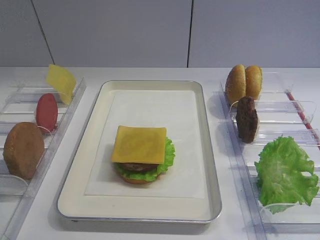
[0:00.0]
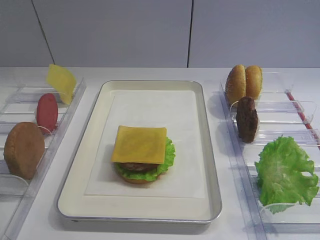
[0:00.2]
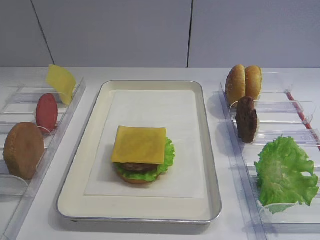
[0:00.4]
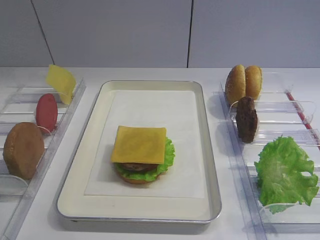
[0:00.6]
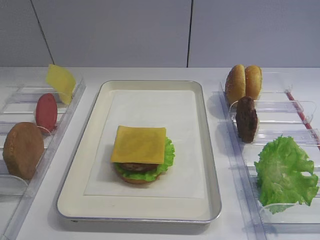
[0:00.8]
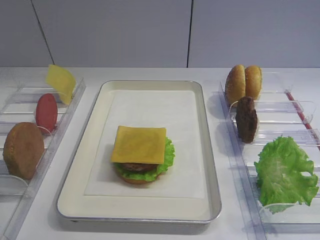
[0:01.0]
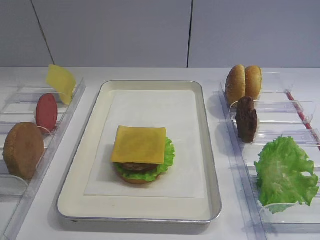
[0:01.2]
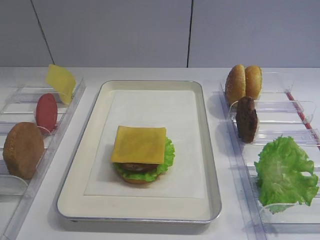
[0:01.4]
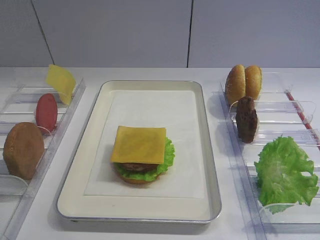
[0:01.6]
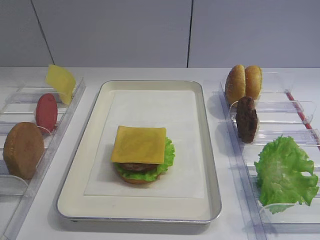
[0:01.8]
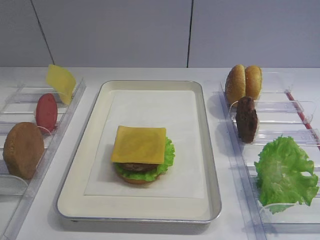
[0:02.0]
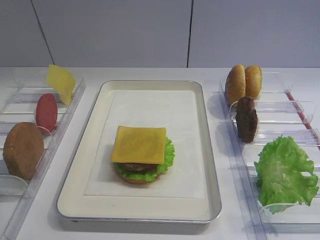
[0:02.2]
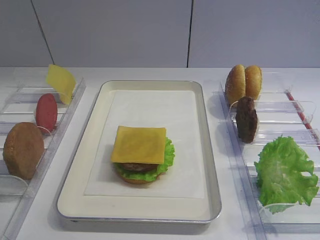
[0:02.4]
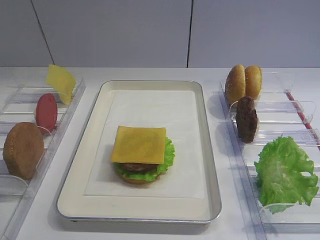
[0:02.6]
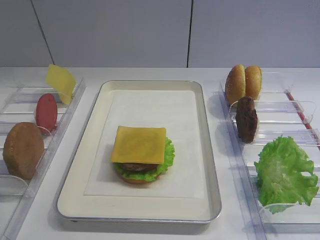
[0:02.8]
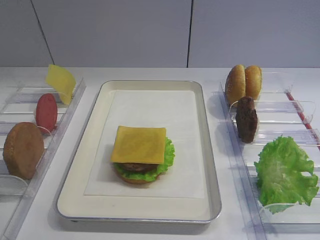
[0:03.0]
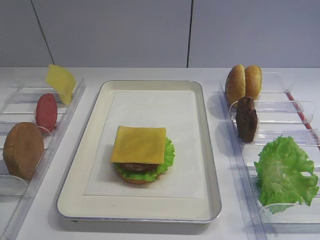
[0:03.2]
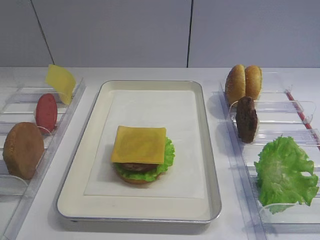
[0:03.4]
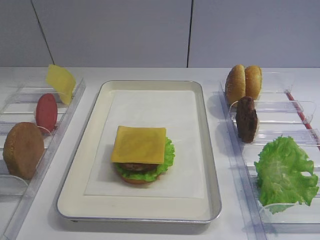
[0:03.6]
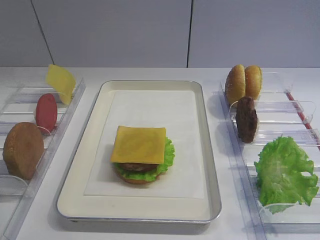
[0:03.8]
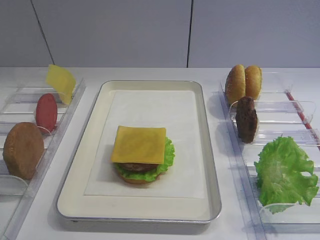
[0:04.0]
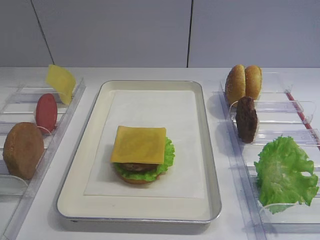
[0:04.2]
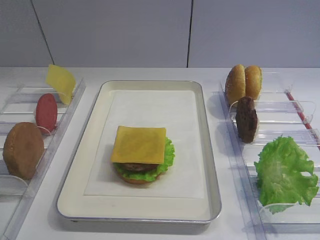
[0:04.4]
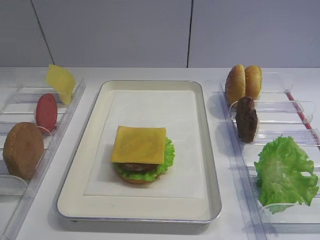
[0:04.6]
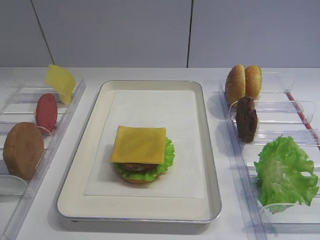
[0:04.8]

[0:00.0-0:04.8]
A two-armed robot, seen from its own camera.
0:01.6 to 0:04.8: The two grippers keep their place.
